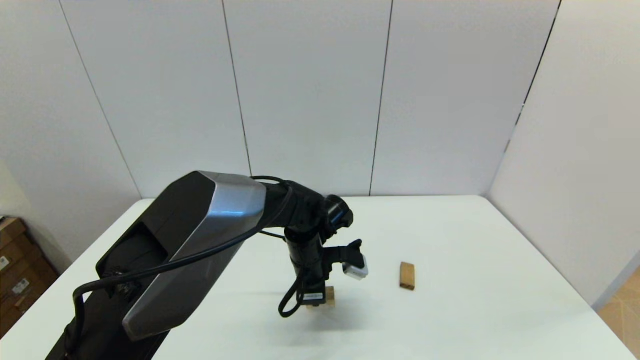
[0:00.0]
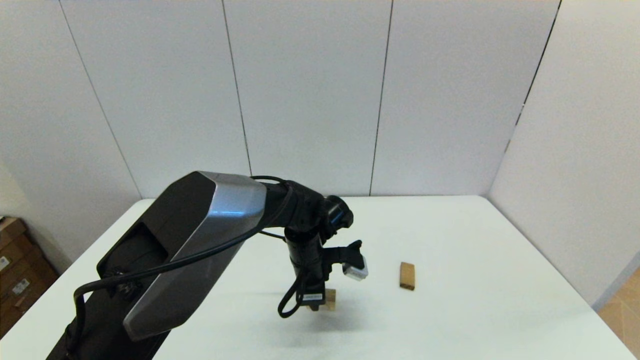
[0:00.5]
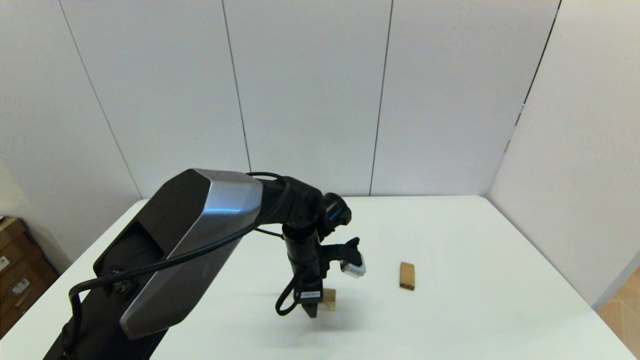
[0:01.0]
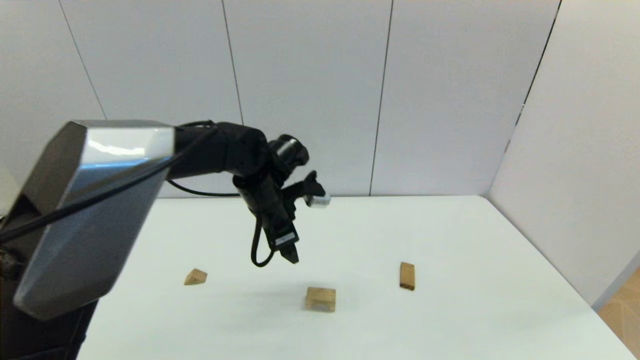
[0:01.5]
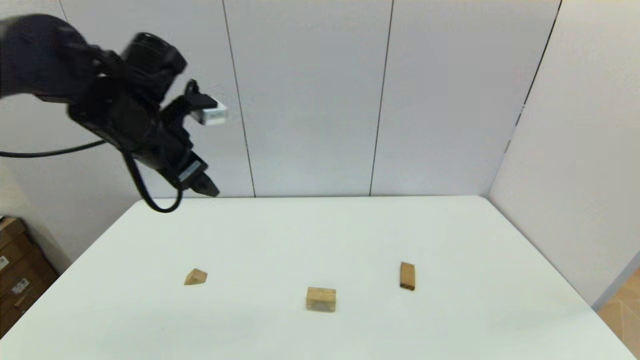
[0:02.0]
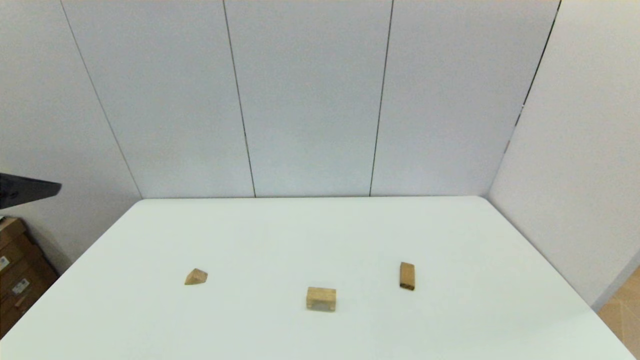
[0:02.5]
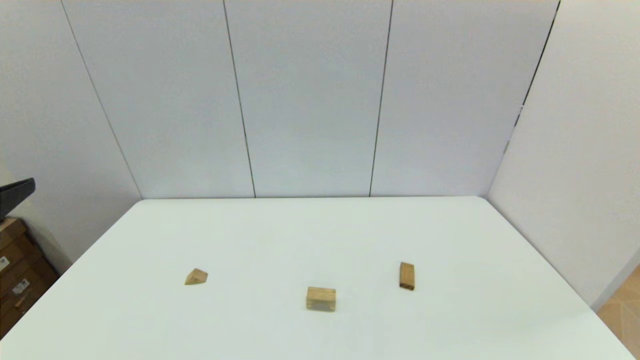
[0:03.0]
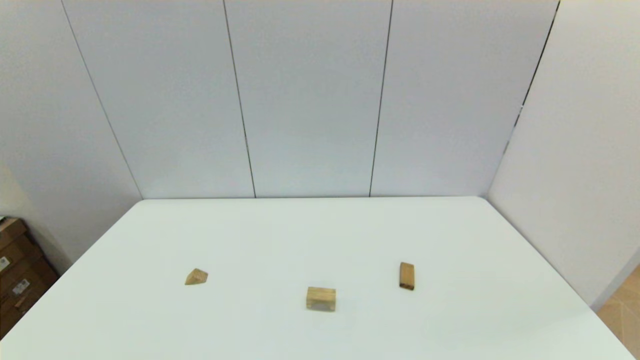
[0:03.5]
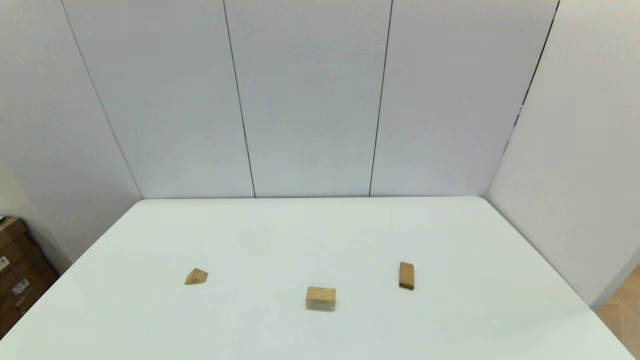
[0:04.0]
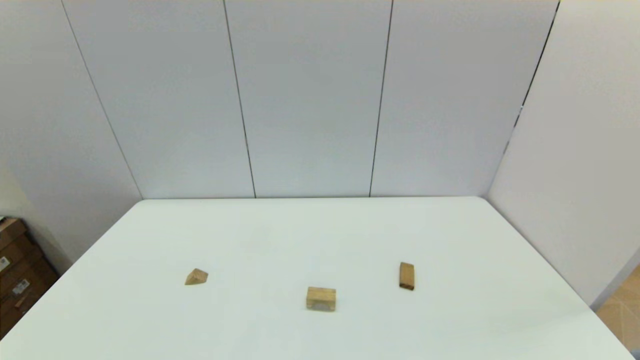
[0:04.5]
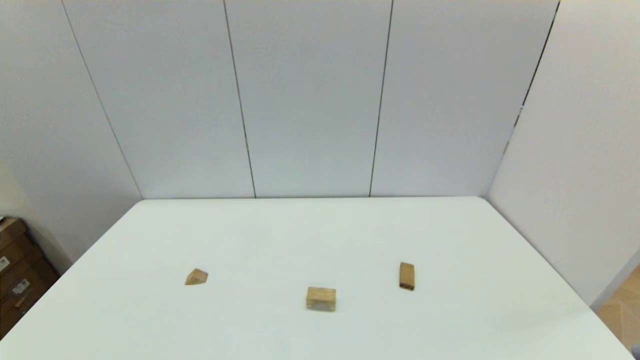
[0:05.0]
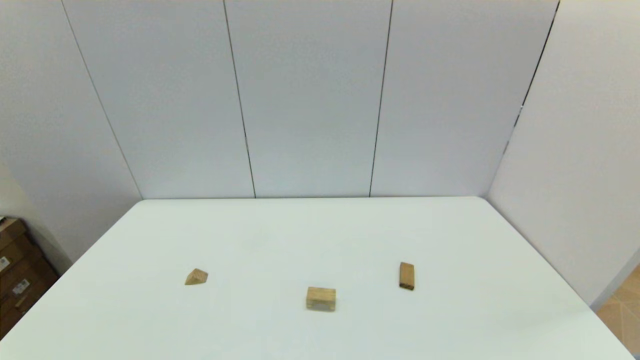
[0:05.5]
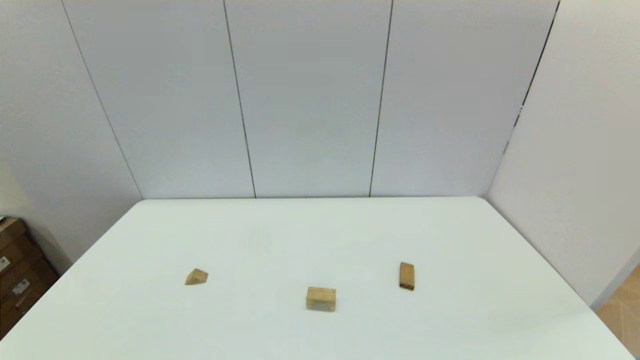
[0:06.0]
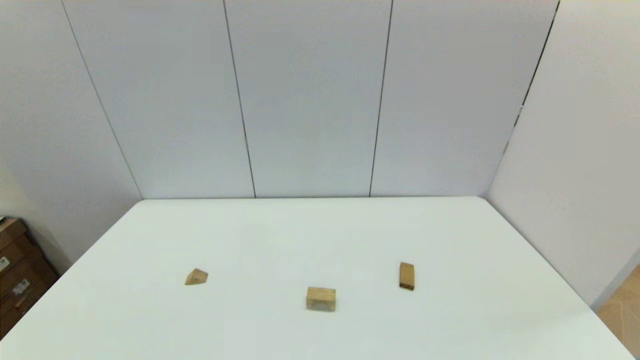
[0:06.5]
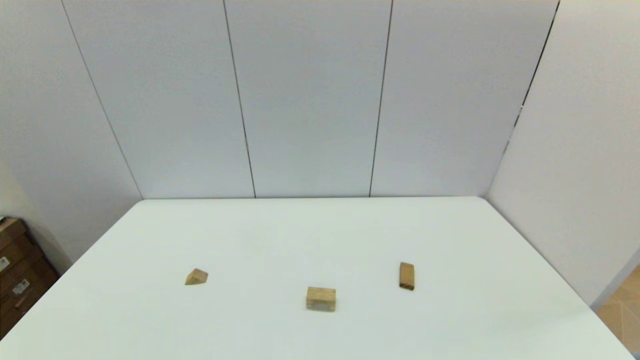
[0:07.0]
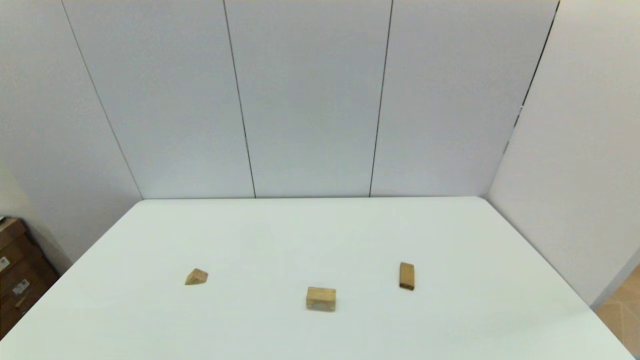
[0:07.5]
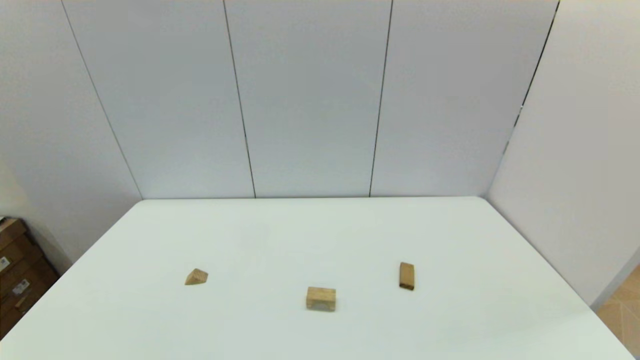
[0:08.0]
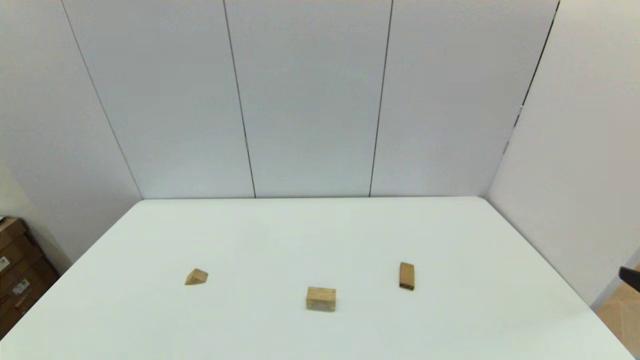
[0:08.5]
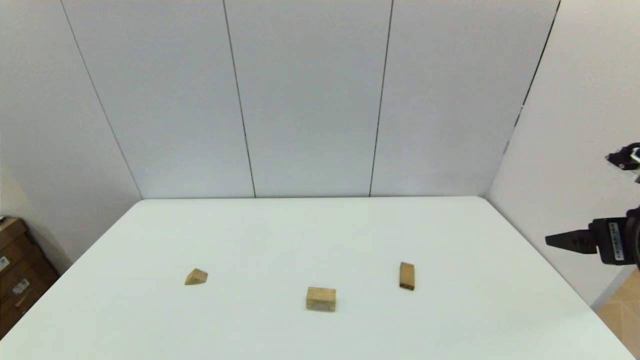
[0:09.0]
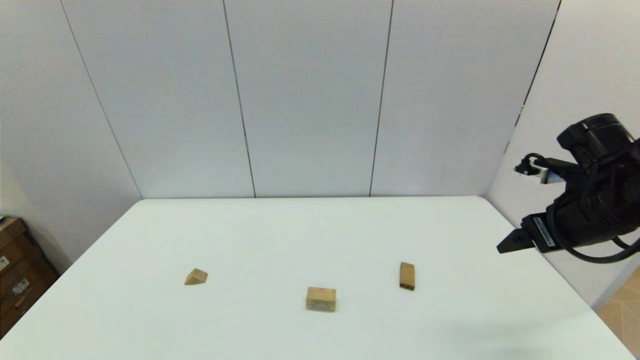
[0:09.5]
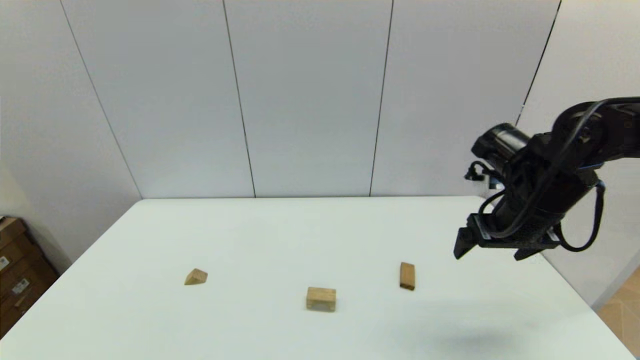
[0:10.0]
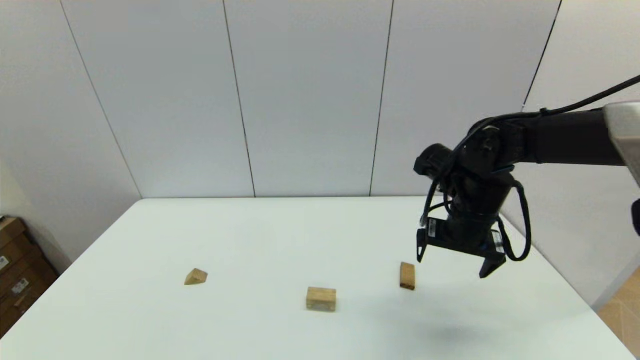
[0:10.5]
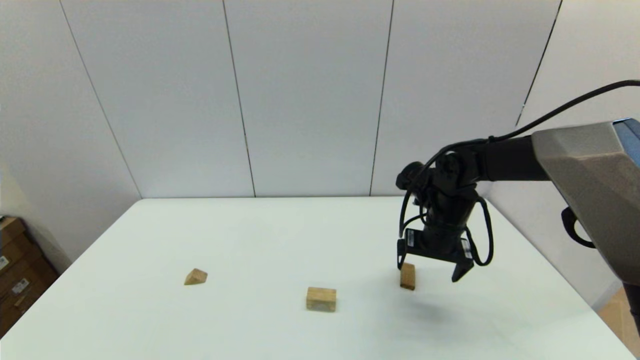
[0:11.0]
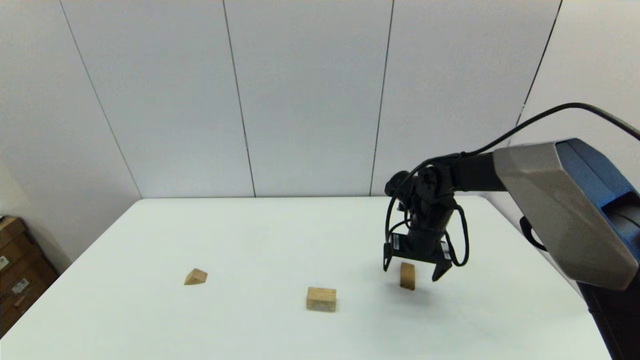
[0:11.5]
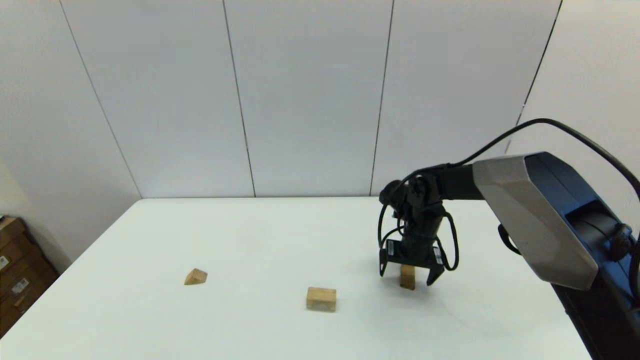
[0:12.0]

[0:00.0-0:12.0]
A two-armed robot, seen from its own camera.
Task of the whole recording: place the arched building blocks in the center of the table, set up the rectangular building blocks, and then set up the triangular building blocks.
0:00.0 to 0:02.0: The left gripper shifts roughly 30 cm upward and to the left, and opens its fingers.
0:02.0 to 0:04.0: The left gripper moves backward and downward, approximately 35 cm.
0:08.0 to 0:10.0: The right gripper moves forward, some 30 cm.
0:10.0 to 0:12.0: The right gripper moves downward, forward and to the left, approximately 20 cm.

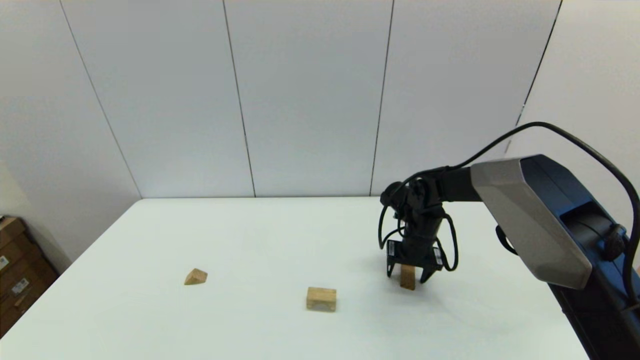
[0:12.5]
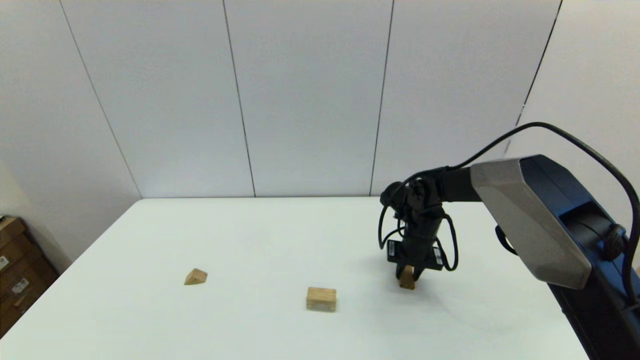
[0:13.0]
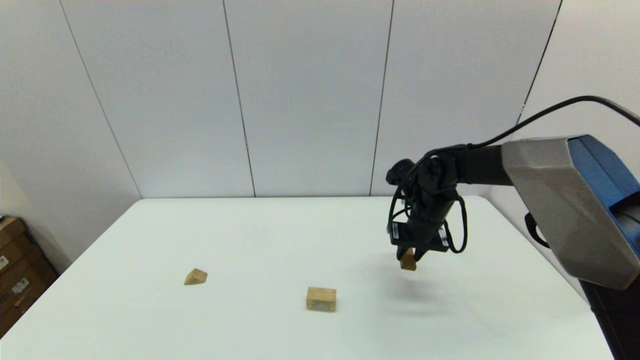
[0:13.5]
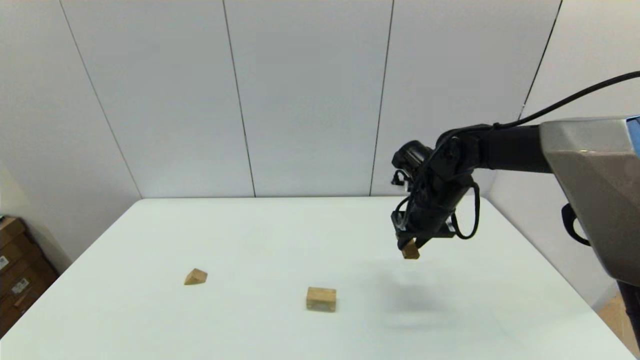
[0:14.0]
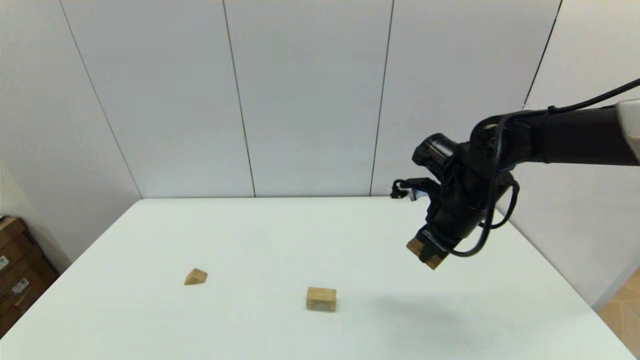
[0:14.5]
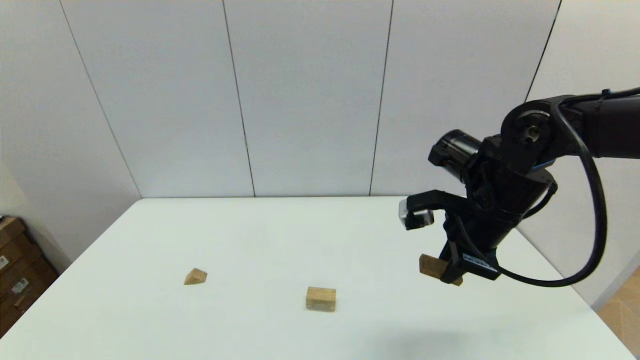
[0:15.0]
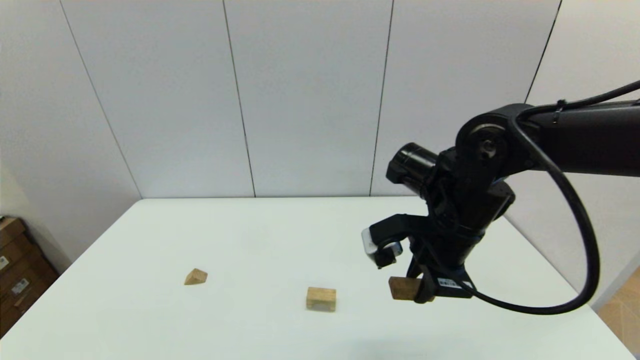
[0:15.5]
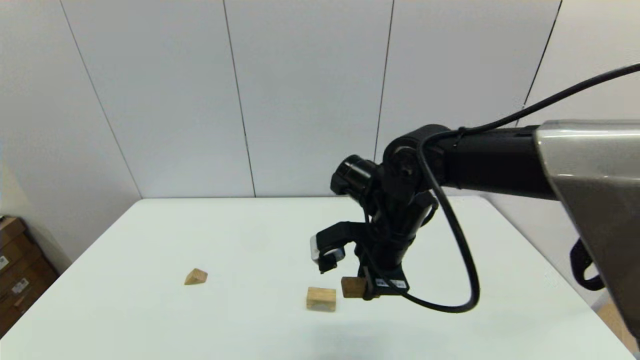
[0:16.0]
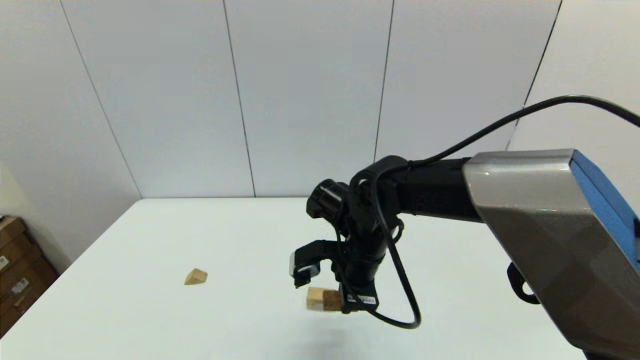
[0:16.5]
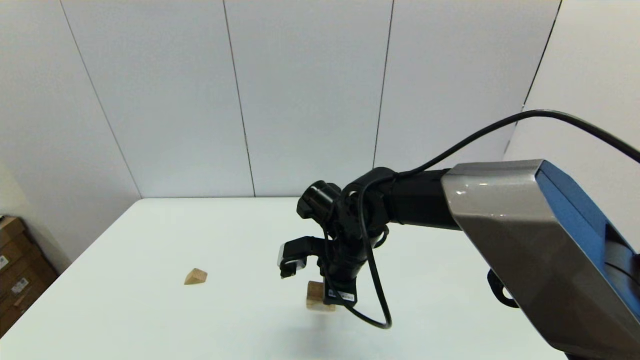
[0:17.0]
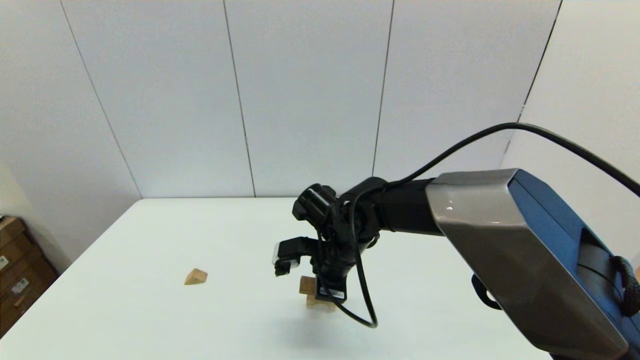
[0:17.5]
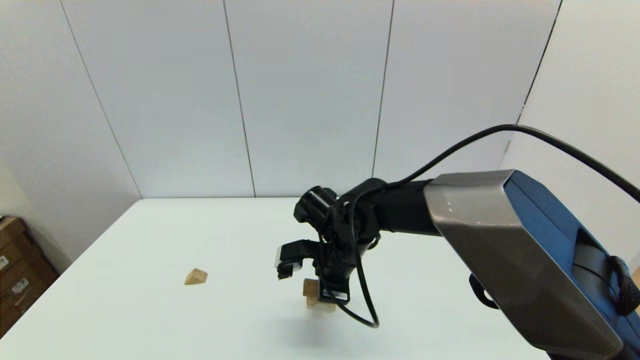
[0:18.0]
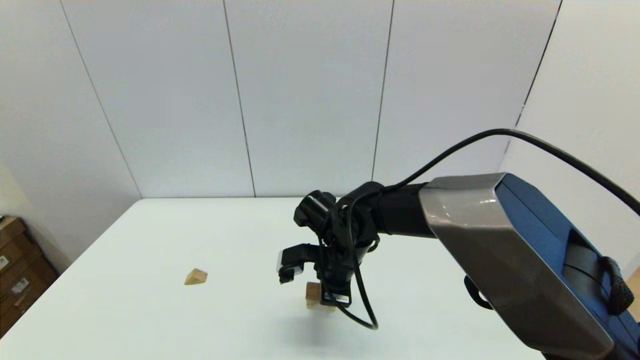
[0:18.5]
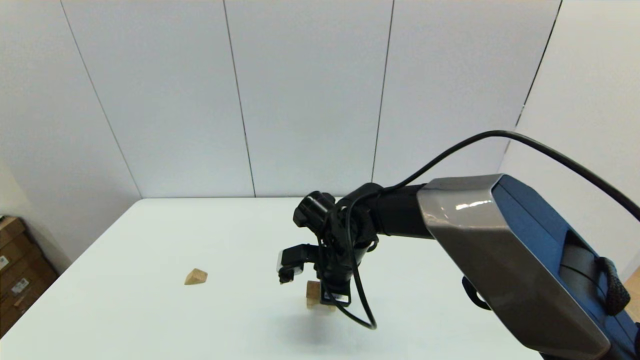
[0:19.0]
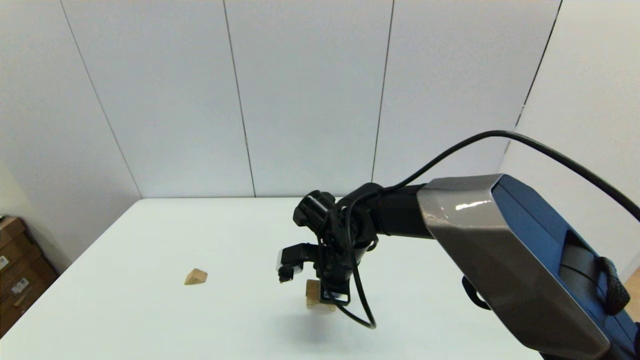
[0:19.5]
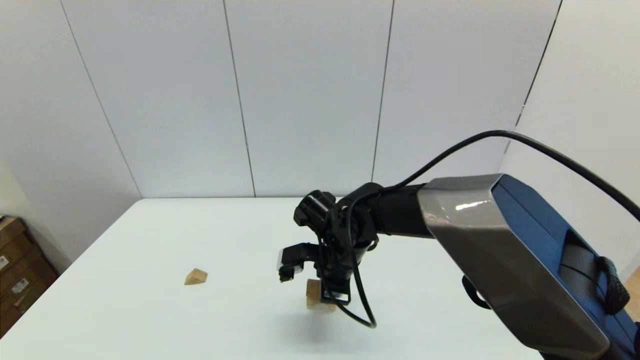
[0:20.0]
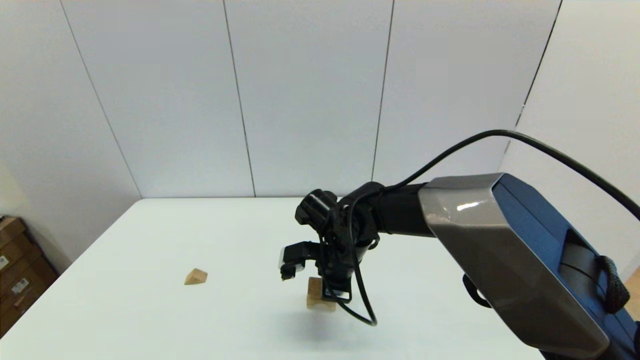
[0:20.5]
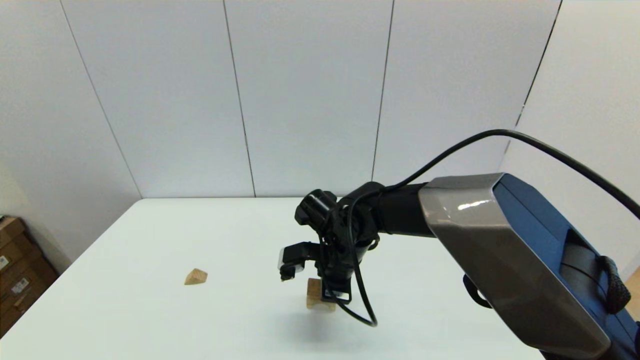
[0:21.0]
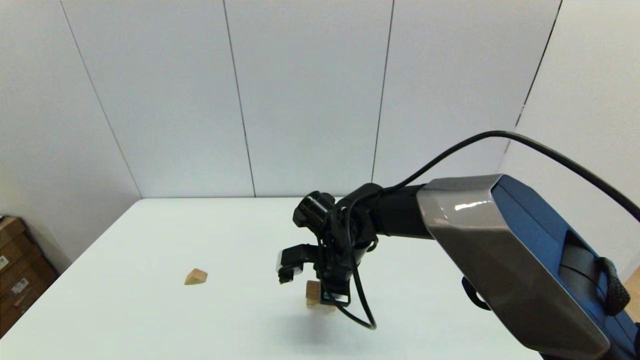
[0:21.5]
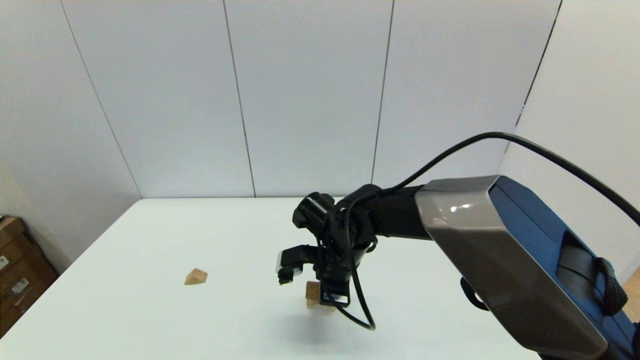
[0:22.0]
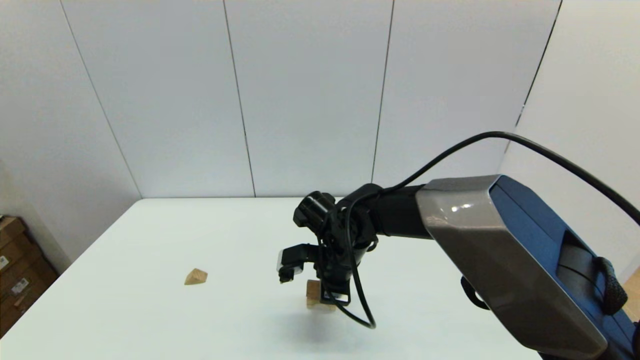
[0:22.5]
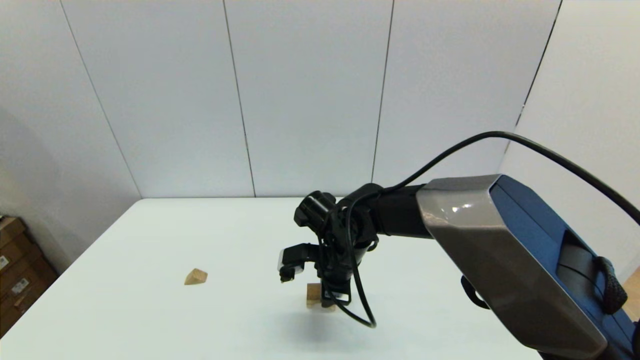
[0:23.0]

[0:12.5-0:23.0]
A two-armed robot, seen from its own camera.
Task of the whole recording: place the arched building blocks in the center of the table, set up the rectangular building blocks, and then set up the triangular building blocks.
Step, 0:13.0 to 0:23.0: Place the box-shaped block onto the arch-shaped block with the right gripper.
0:12.5 to 0:14.5: The right gripper is displaced upward and backward by some 15 cm, and closes up.
0:14.5 to 0:16.5: The right gripper heads to the left, covering about 15 cm.
0:16.5 to 0:19.0: The right gripper changes place by some 5 cm.
0:19.0 to 0:21.0: The two grippers keep their place.
0:21.0 to 0:23.0: The right gripper opens up.
